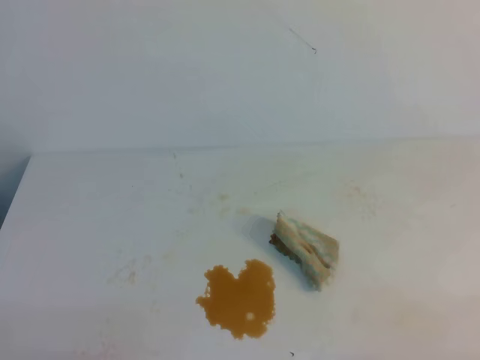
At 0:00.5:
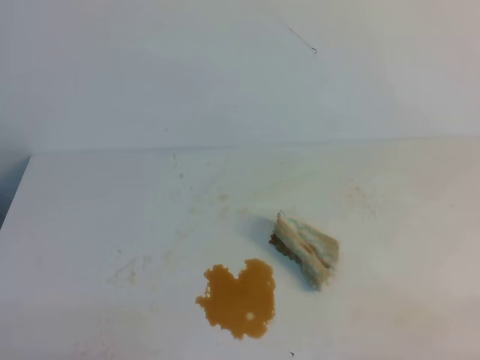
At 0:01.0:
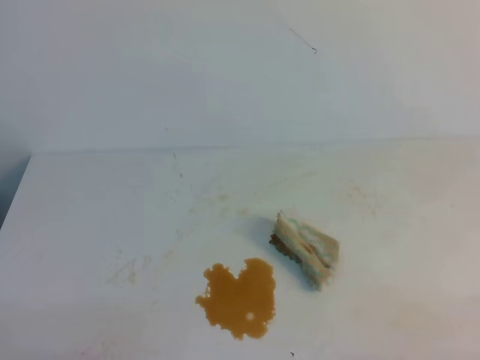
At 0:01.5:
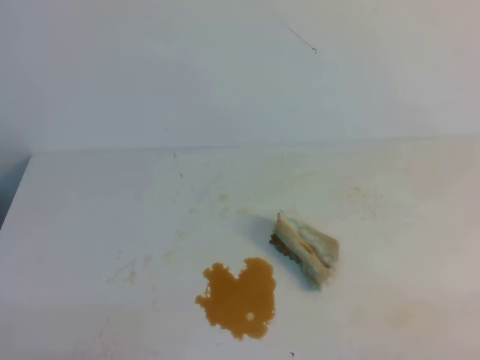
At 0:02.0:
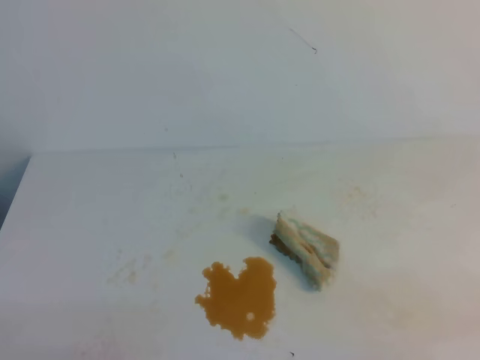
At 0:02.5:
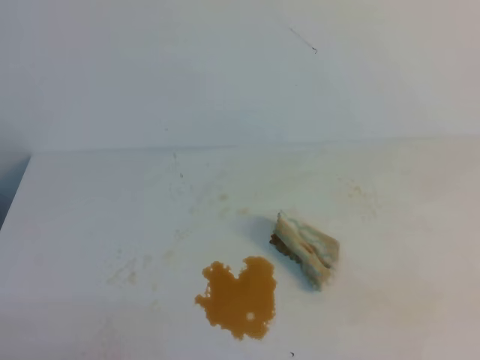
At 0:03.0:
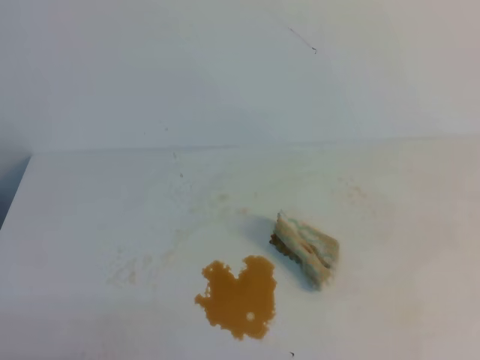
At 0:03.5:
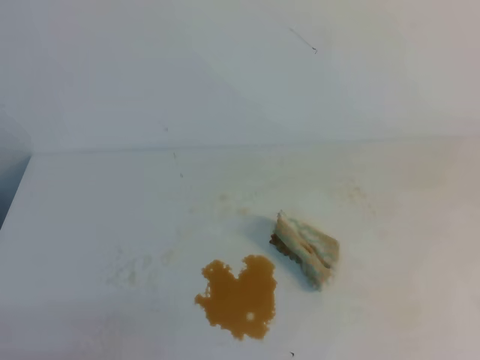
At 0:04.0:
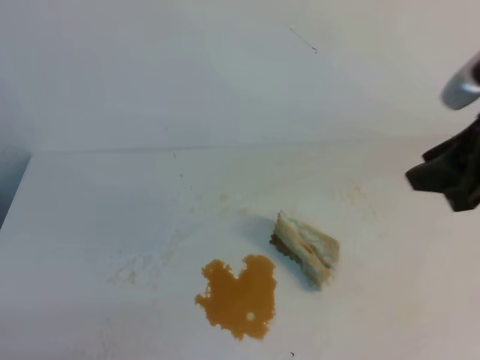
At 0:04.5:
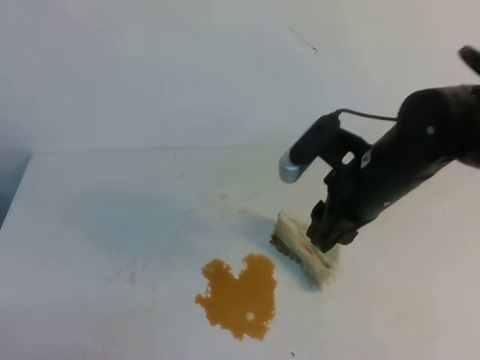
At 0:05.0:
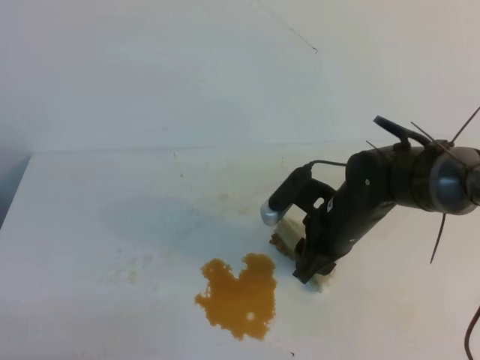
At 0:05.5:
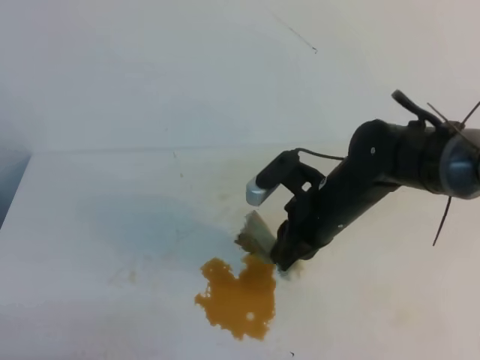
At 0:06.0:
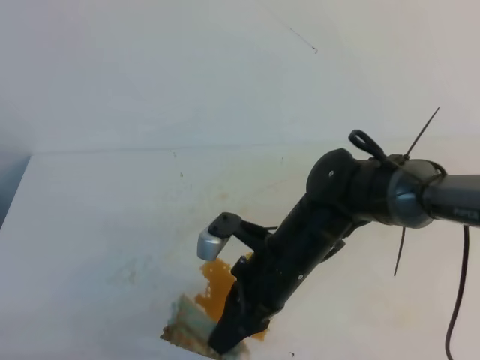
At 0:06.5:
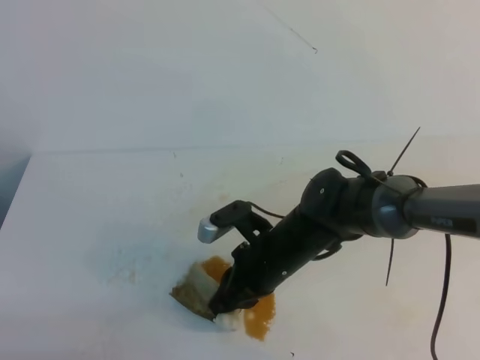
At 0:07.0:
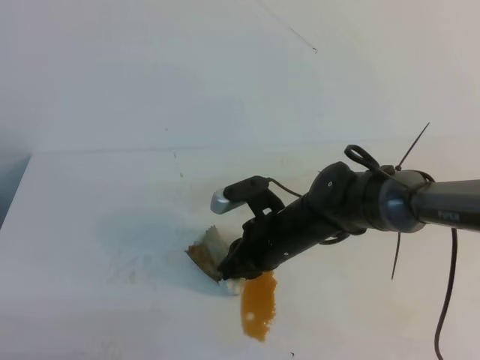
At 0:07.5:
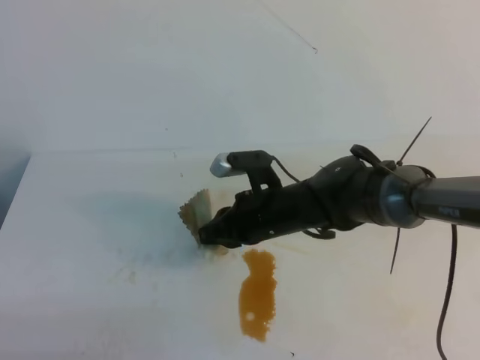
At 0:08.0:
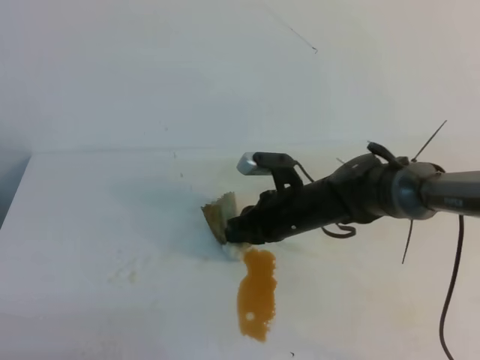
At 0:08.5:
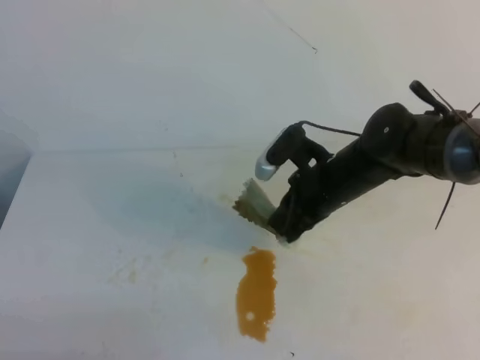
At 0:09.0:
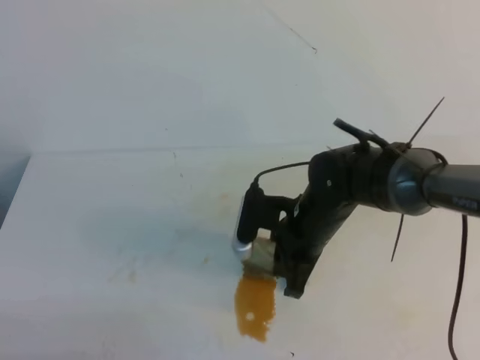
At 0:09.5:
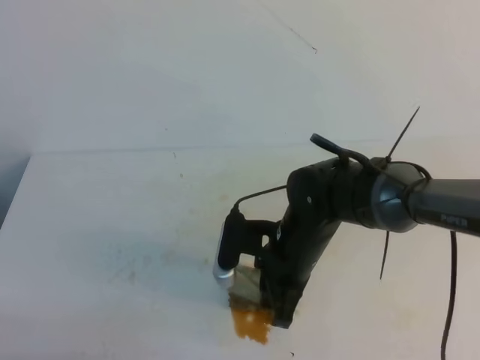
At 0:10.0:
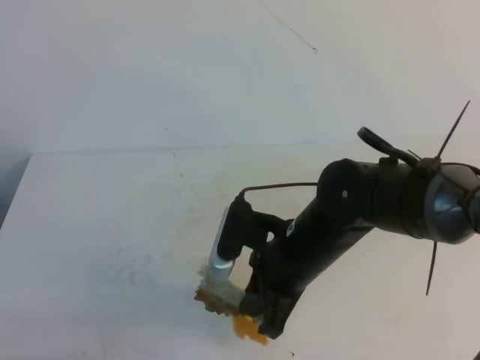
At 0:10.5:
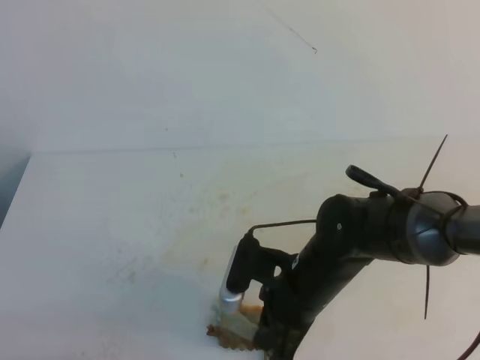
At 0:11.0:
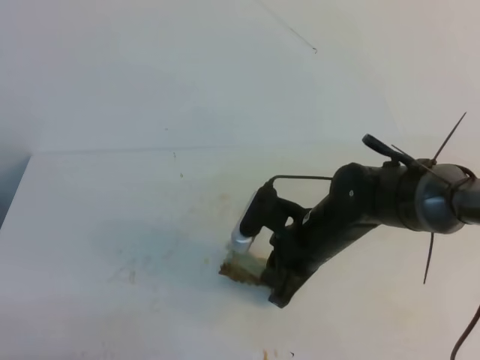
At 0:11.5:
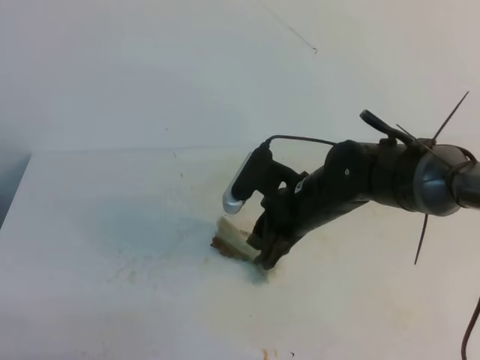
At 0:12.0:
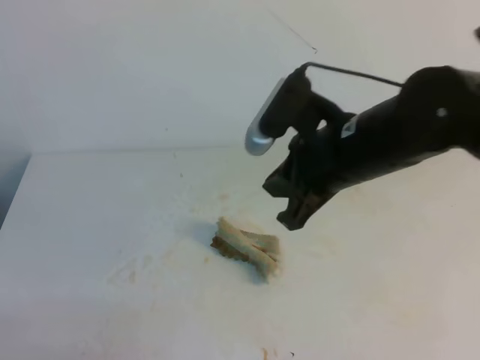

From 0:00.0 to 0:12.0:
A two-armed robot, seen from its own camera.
From 0:02.0 to 0:04.0: The right gripper is displaced forward and upward by roughly 25 cm, and opens.
From 0:04.0 to 0:06.0: The right gripper heads to the left and downward, covering roughly 25 cm, and closes.
From 0:06.0 to 0:08.0: The right gripper is displaced forward by about 10 cm.
From 0:08.0 to 0:10.0: The right gripper heads backward and upward, covering roughly 10 cm.
From 0:10.0 to 0:12.0: The right gripper moves upward, some 10 cm, and opens and closes again.

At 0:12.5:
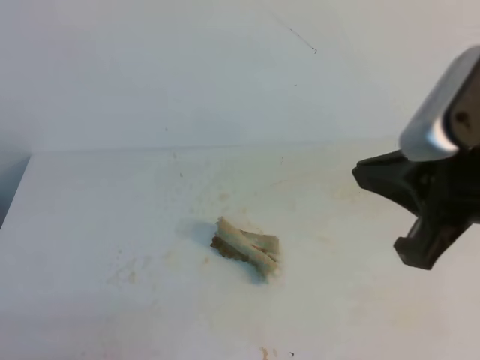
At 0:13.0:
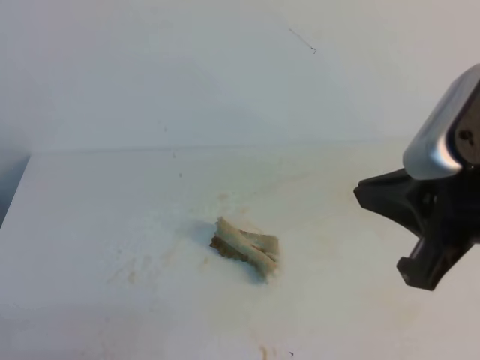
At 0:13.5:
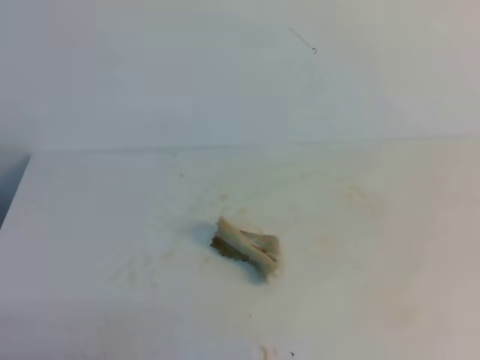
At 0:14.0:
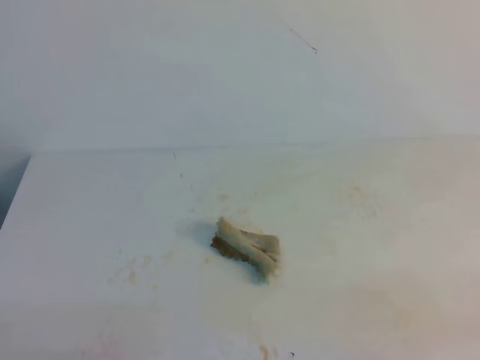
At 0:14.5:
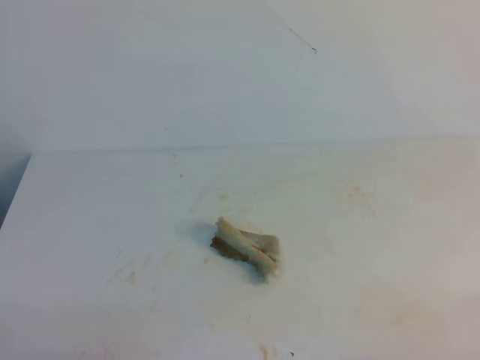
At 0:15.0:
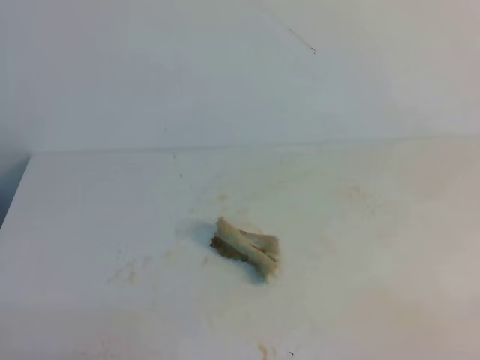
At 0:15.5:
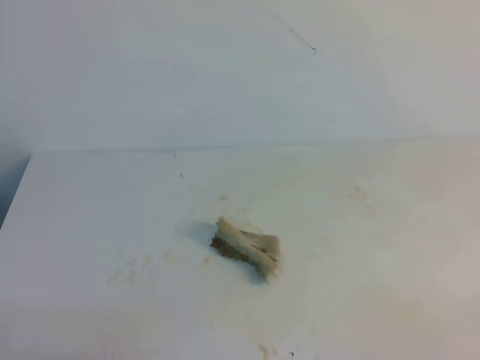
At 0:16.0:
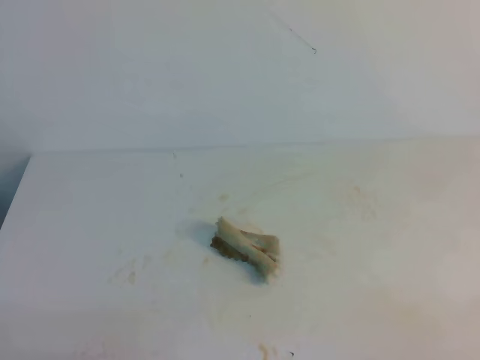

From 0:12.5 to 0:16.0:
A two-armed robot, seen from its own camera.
From 0:12.5 to 0:14.5: The right gripper heads downward, to the right and backward, covering approximately 30 cm.

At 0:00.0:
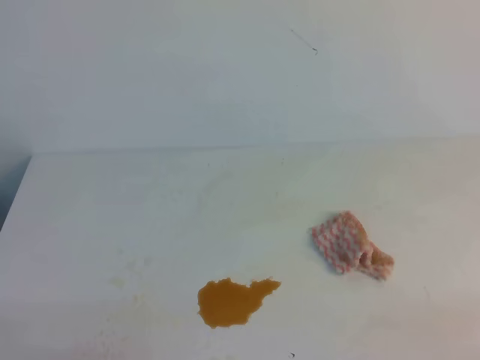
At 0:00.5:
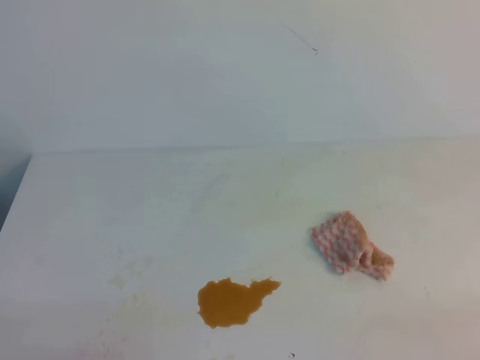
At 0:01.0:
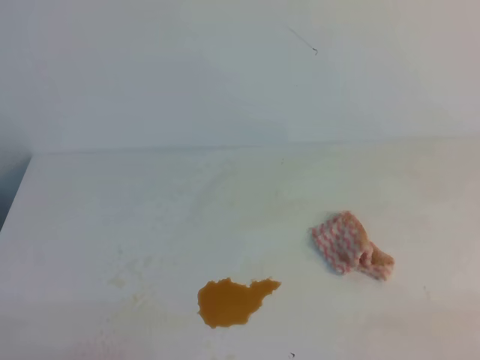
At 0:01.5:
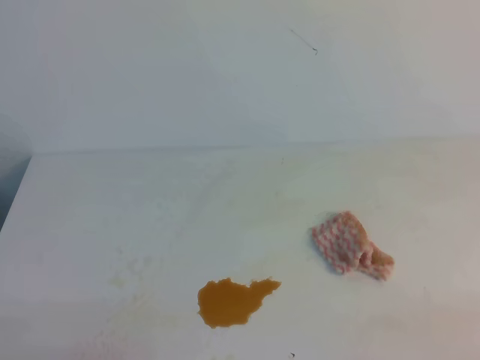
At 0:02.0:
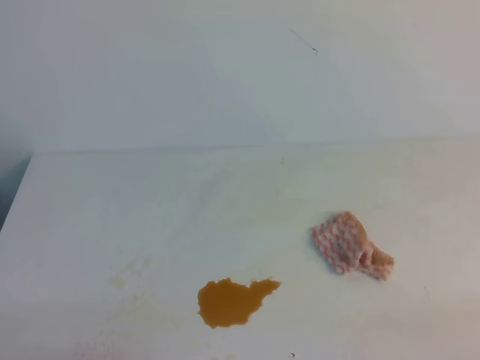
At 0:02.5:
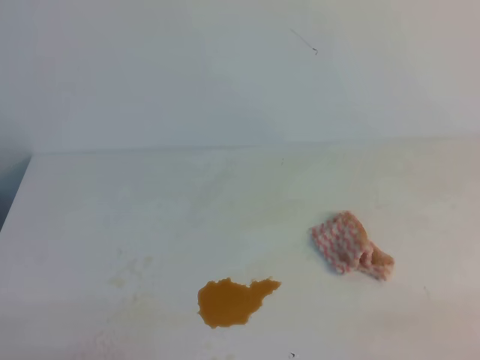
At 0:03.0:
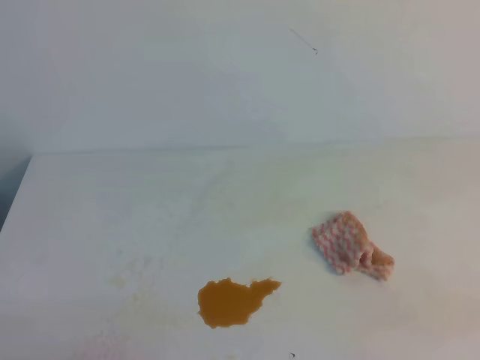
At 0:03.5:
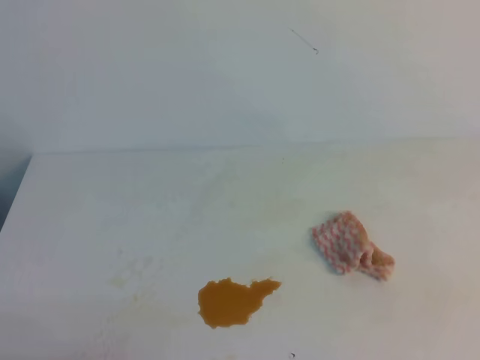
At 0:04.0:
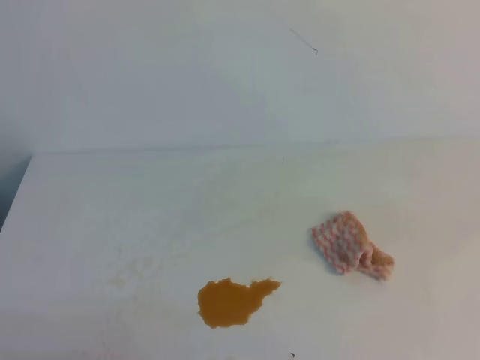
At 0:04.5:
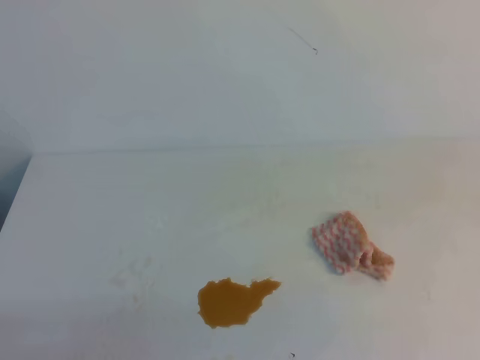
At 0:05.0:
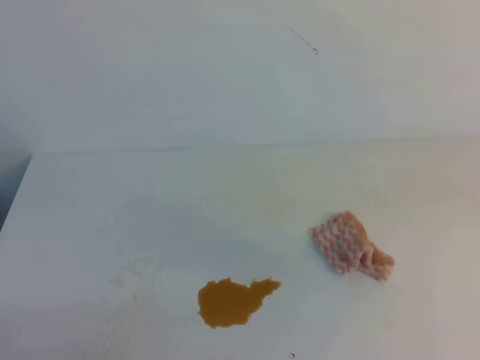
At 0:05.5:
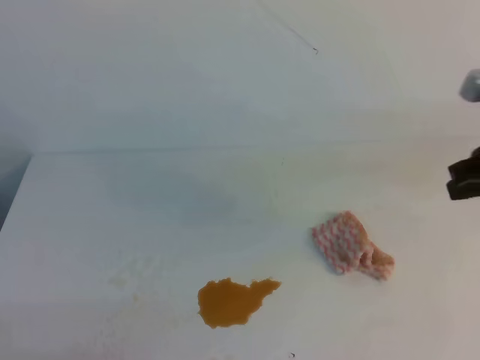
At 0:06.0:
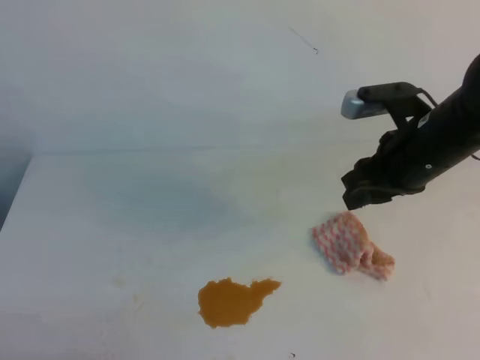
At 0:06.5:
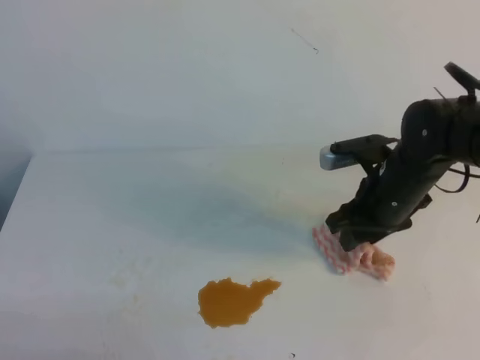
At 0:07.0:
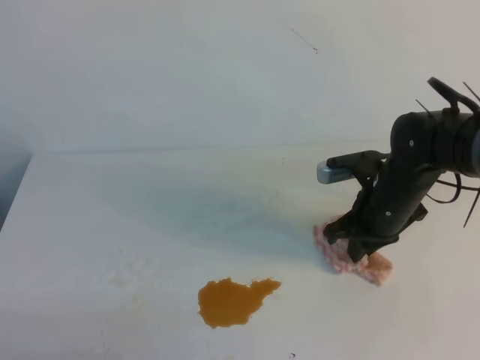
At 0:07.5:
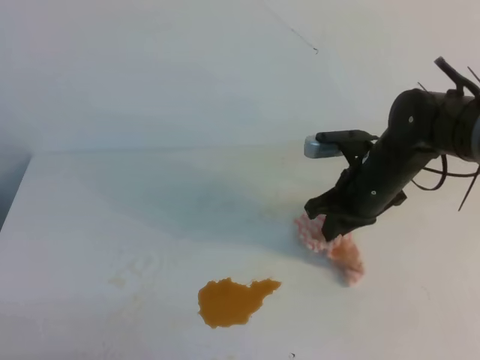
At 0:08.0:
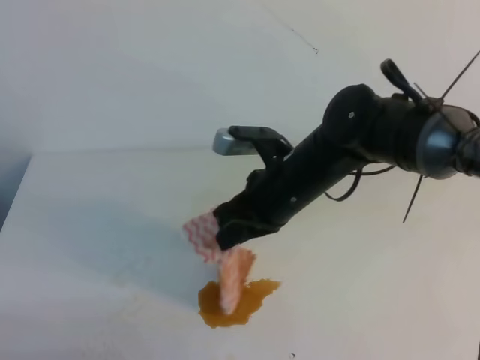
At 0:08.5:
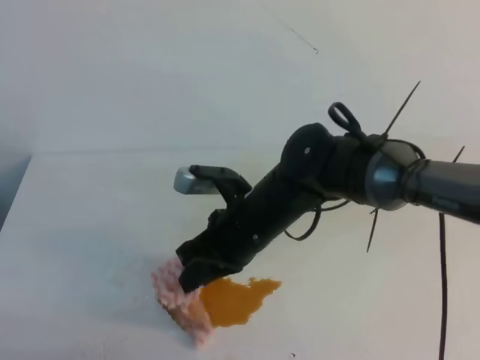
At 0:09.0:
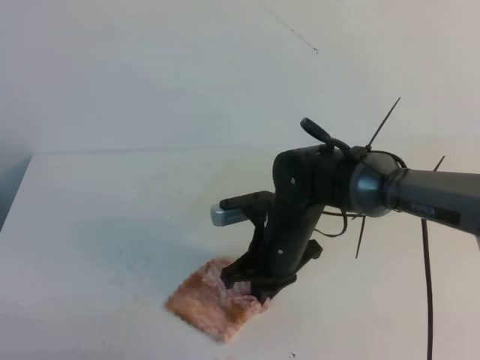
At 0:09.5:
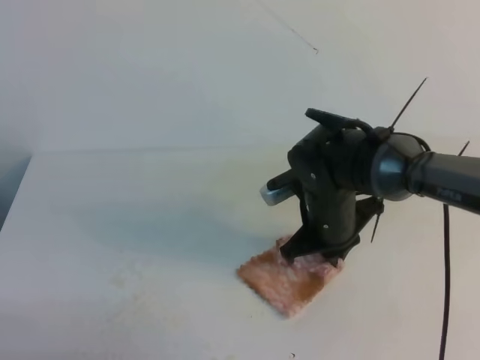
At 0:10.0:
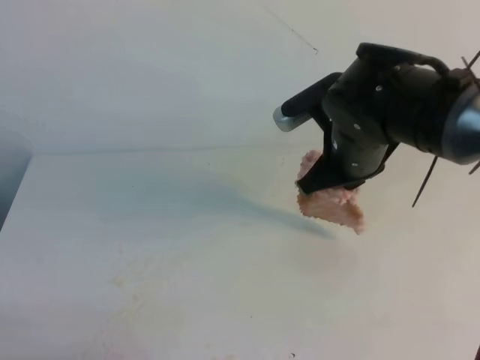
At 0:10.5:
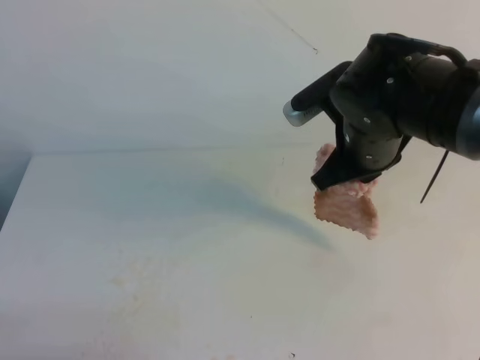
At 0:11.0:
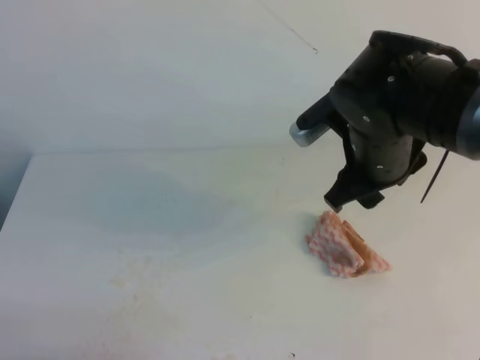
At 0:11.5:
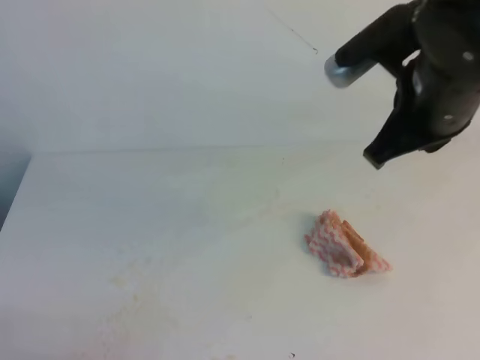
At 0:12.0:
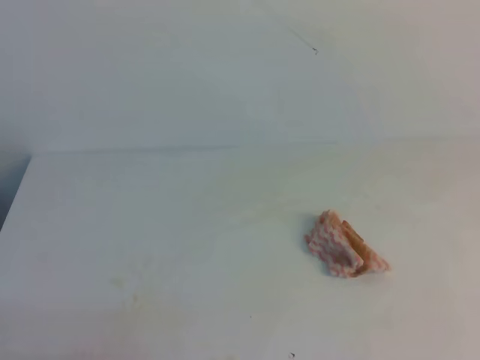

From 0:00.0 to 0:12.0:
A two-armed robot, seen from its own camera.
From 0:00.0 to 0:02.0: The two grippers keep their place.
From 0:04.0 to 0:06.0: The right gripper travels forward and to the left by about 30 cm, and opens its fingers.
From 0:06.0 to 0:08.0: The right gripper is displaced to the left by some 15 cm, and closes up.
From 0:08.0 to 0:10.0: The right gripper travels downward and back again, roughly 10 cm each way.
From 0:10.0 to 0:12.0: The right gripper travels upward, backward and to the right by some 30 cm, and opens, then closes again.
